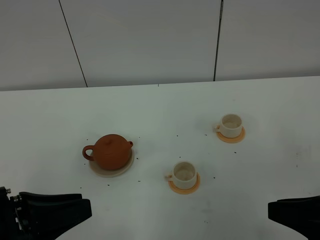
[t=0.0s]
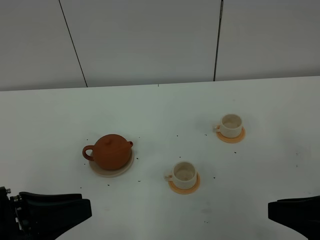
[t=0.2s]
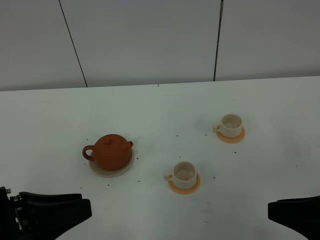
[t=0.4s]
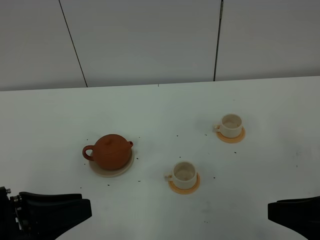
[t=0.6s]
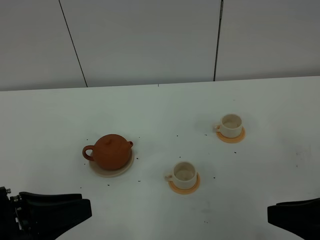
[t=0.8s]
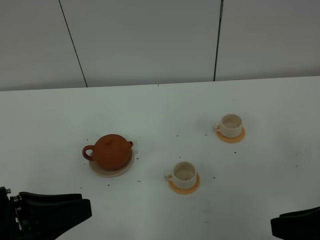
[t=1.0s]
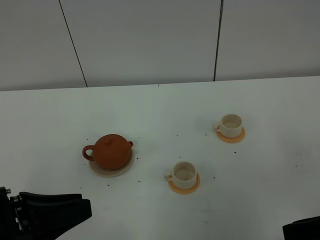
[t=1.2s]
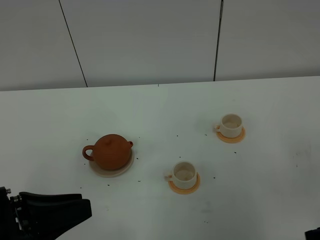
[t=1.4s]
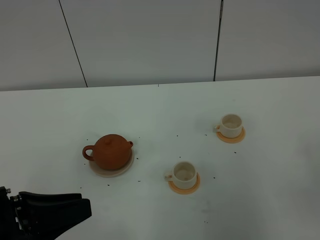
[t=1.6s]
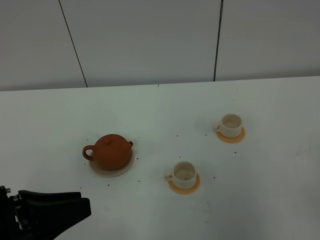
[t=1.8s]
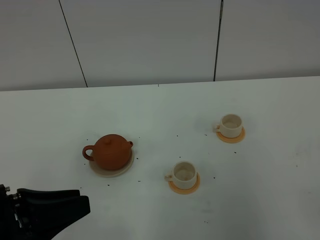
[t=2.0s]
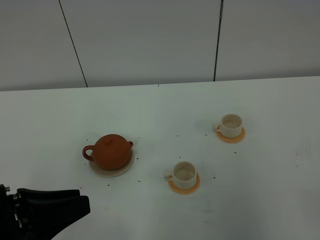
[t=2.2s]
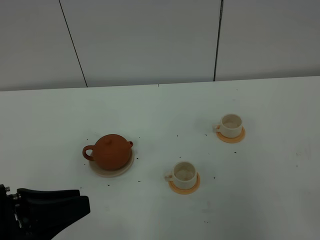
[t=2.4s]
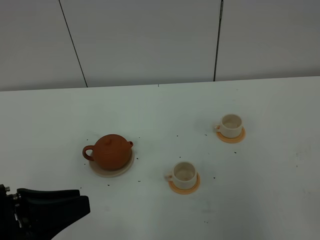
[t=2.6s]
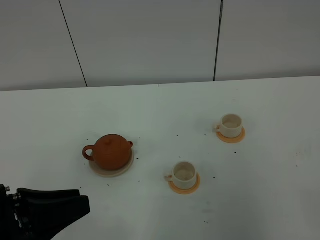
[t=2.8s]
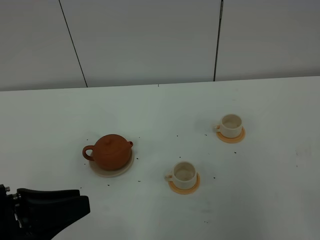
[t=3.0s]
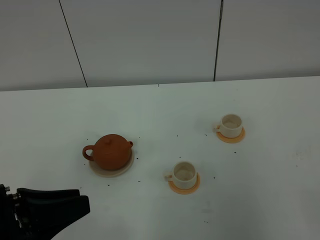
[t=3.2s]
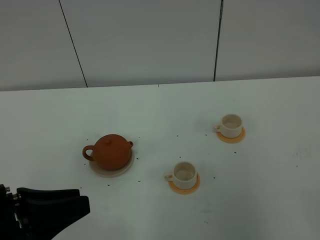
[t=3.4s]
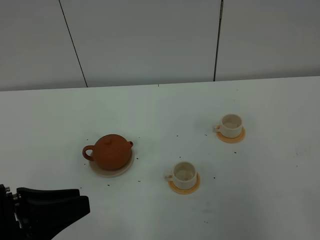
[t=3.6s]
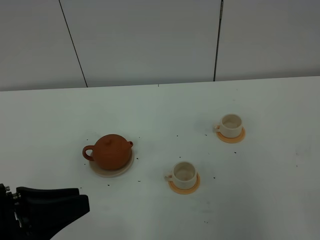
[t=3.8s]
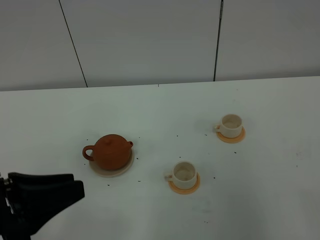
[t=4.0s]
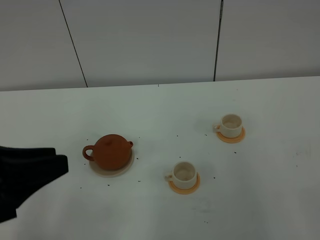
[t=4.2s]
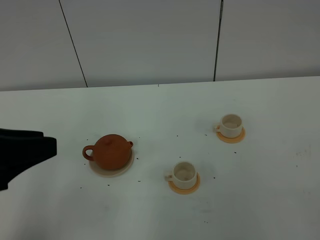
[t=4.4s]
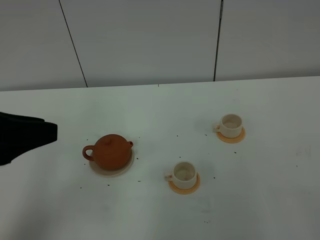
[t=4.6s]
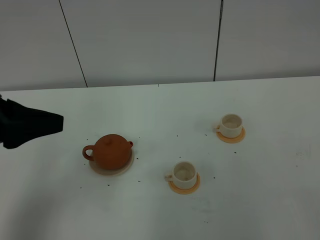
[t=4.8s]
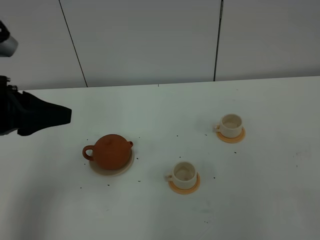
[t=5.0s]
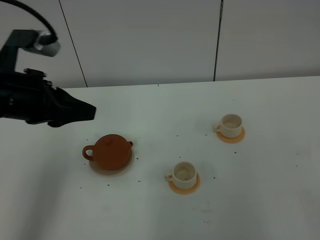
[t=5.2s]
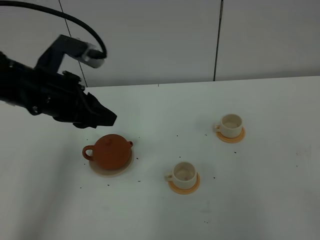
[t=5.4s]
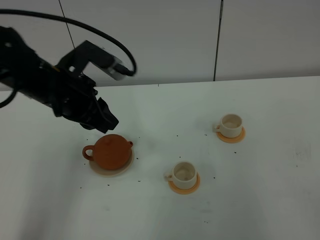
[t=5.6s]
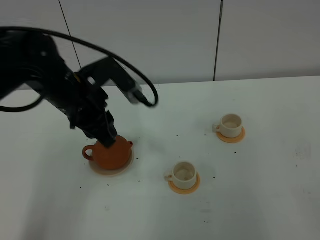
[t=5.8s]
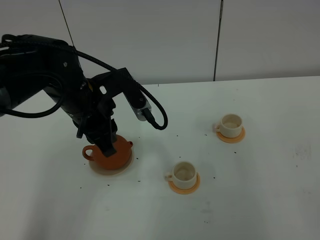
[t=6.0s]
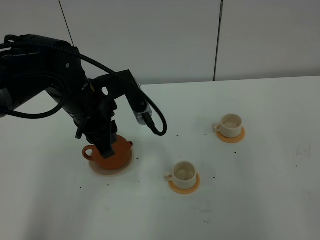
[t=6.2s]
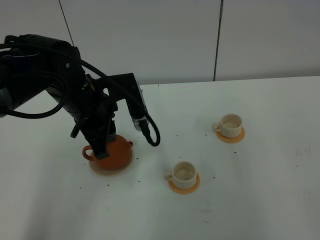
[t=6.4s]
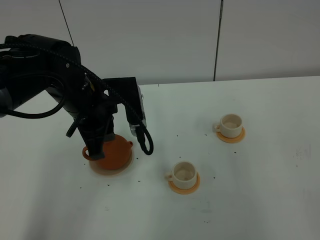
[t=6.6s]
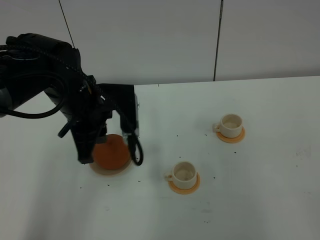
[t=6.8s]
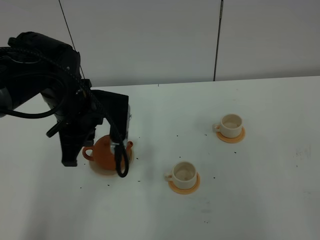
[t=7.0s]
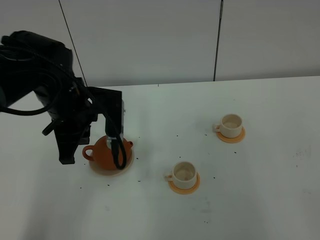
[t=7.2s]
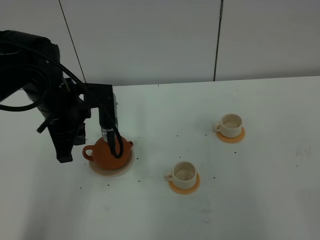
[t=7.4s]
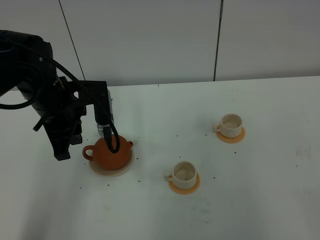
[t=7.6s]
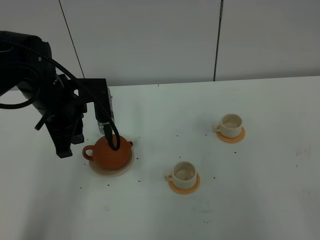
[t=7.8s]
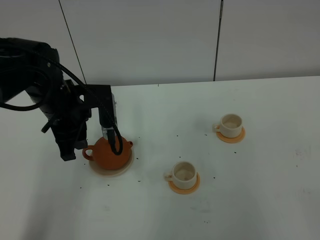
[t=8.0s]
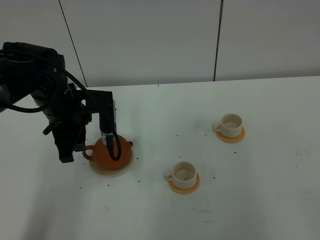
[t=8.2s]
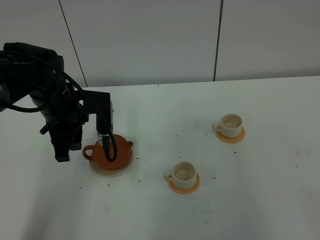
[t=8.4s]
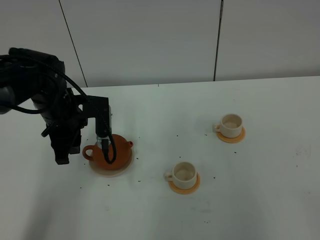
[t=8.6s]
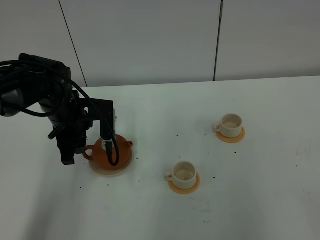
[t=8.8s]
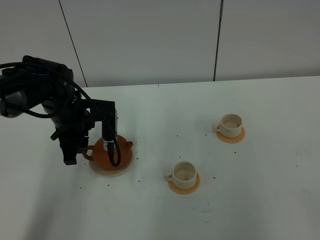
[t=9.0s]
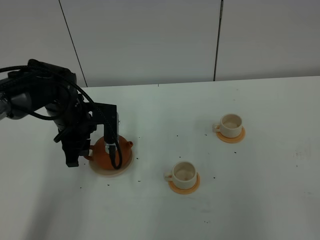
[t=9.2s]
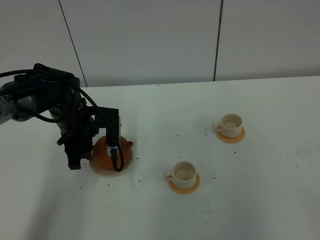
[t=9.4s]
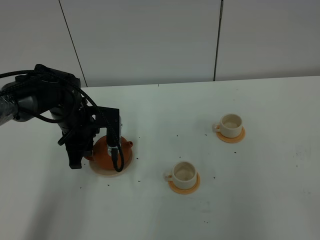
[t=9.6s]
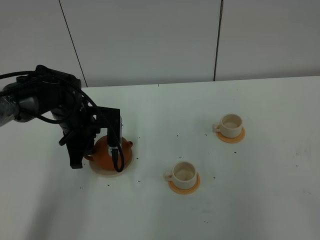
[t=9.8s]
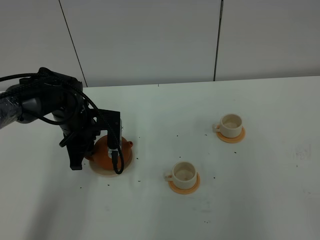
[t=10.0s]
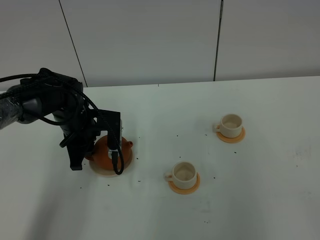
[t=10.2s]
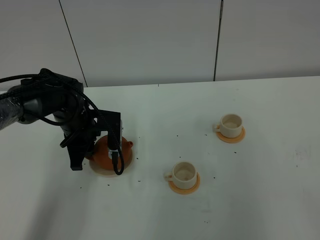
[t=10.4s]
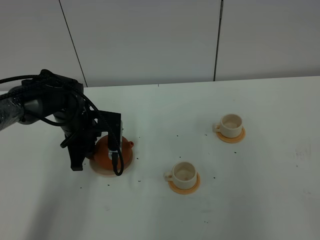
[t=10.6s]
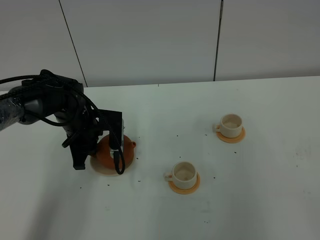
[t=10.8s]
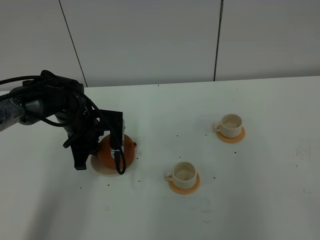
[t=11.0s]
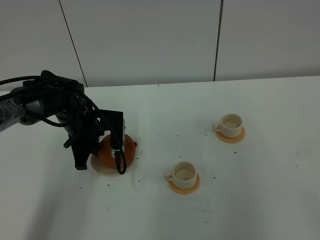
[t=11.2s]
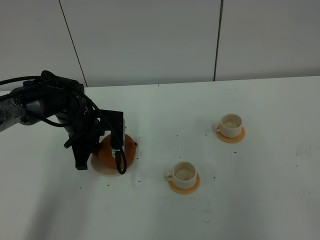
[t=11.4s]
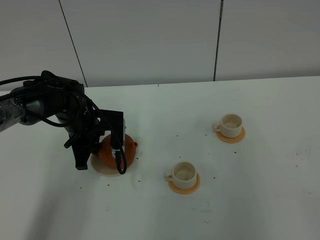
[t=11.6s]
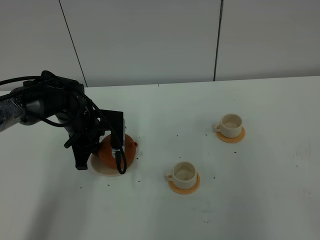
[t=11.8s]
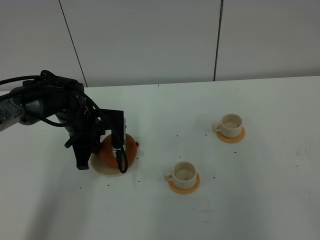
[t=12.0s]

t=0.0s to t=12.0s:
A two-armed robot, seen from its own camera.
Task of the whole recording: grasp the brown teapot and pour the tea into the two white teacups one by one, put the brown teapot back in its original place.
t=0.0s to t=1.6s: The right gripper heads backward, covering roughly 5 cm.
t=3.0s to t=4.4s: The left gripper moves upward, roughly 10 cm.
t=4.4s to t=6.0s: The left gripper moves forward, to the right and downward, about 25 cm.
t=6.0s to t=7.6s: The left gripper is displaced to the left by roughly 5 cm.
t=7.6s to t=9.0s: The left gripper travels downward by about 5 cm, and opens up.
t=9.0s to t=10.4s: There are only small adjustments of the grippers.
t=10.4s to t=12.0s: The left gripper closes up.

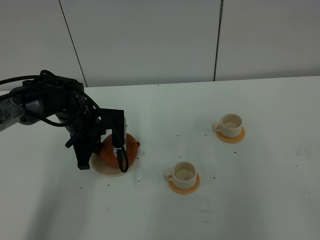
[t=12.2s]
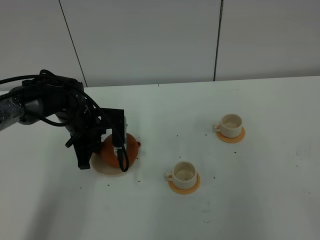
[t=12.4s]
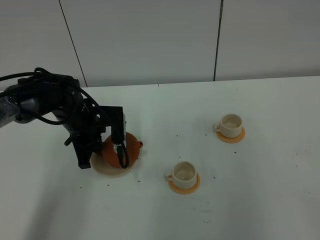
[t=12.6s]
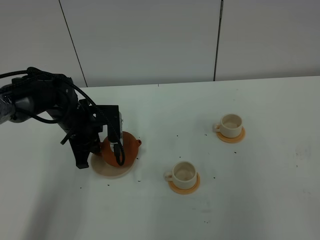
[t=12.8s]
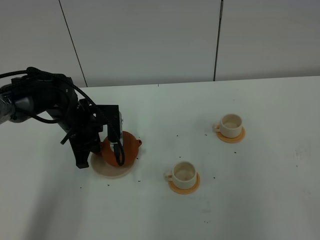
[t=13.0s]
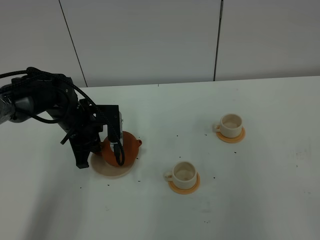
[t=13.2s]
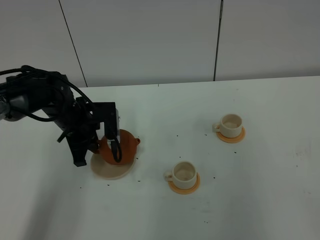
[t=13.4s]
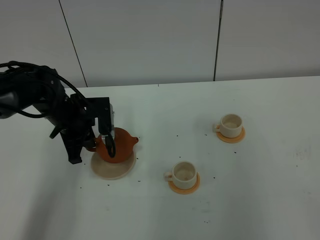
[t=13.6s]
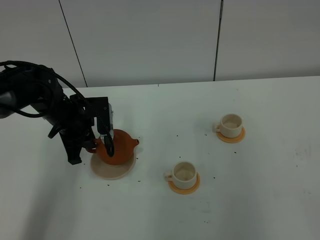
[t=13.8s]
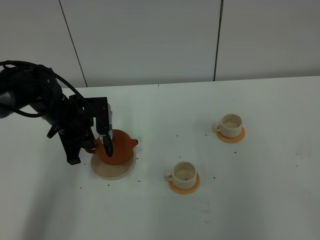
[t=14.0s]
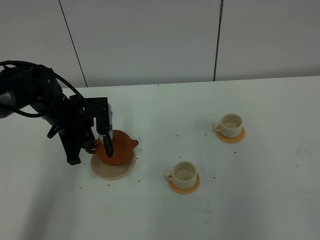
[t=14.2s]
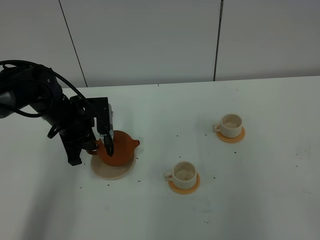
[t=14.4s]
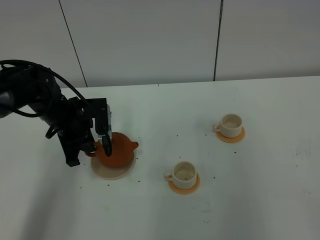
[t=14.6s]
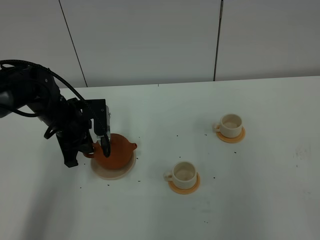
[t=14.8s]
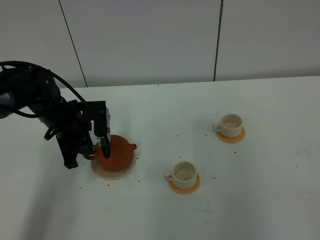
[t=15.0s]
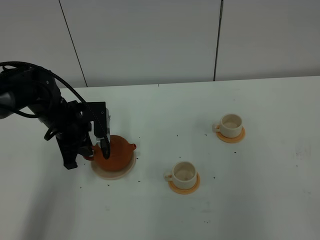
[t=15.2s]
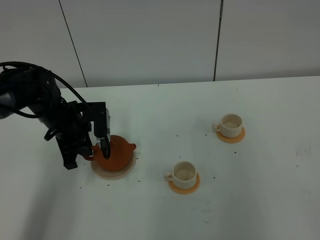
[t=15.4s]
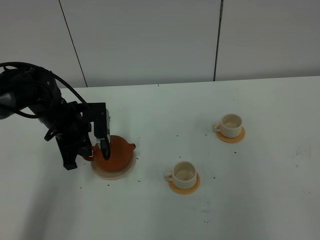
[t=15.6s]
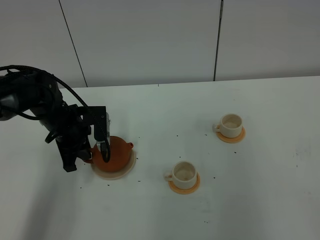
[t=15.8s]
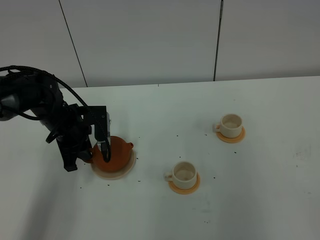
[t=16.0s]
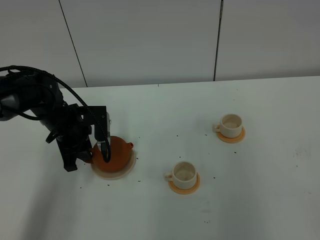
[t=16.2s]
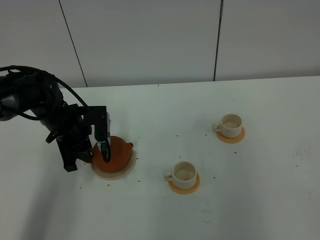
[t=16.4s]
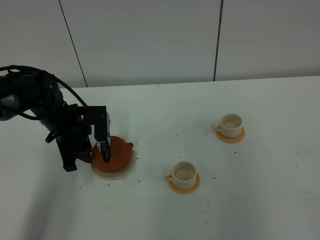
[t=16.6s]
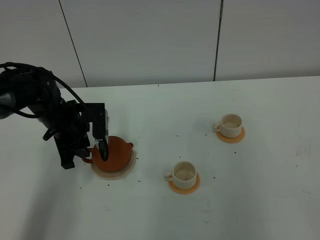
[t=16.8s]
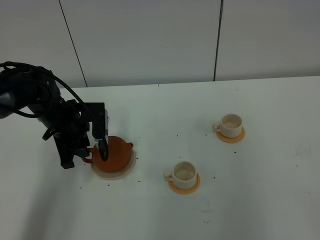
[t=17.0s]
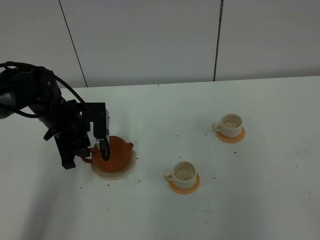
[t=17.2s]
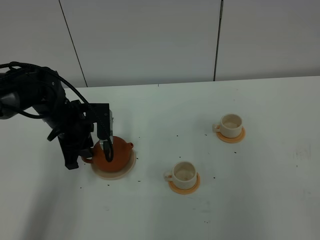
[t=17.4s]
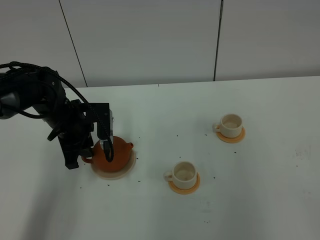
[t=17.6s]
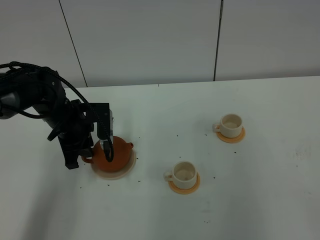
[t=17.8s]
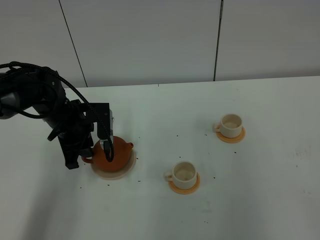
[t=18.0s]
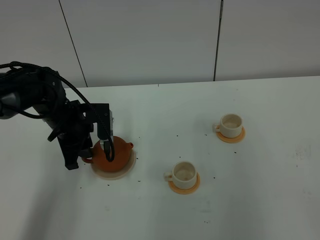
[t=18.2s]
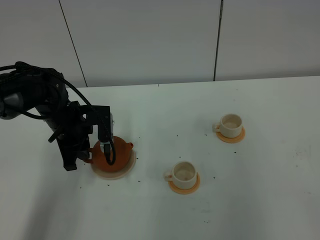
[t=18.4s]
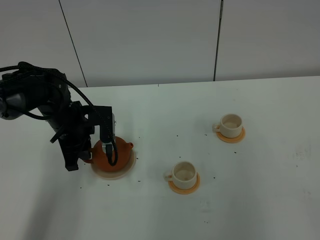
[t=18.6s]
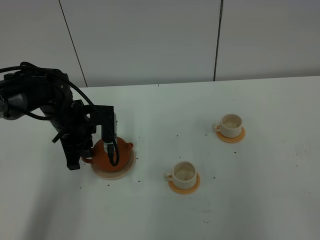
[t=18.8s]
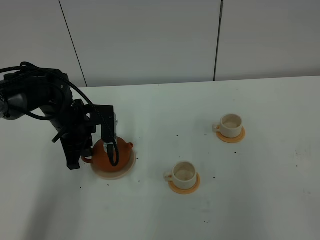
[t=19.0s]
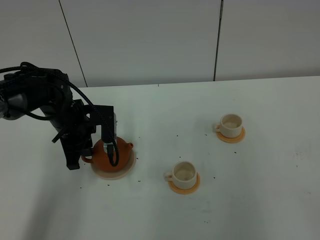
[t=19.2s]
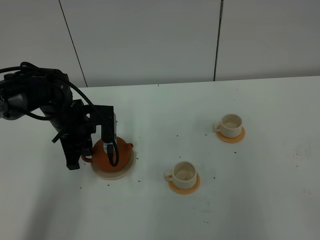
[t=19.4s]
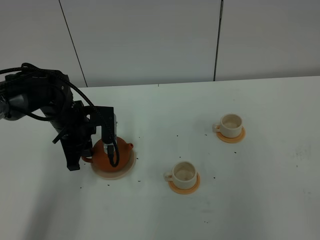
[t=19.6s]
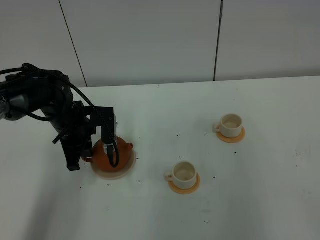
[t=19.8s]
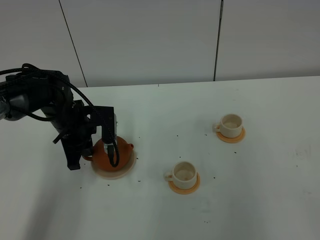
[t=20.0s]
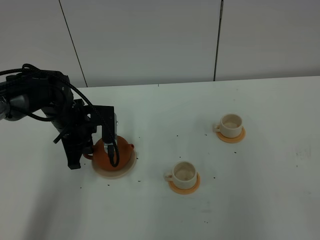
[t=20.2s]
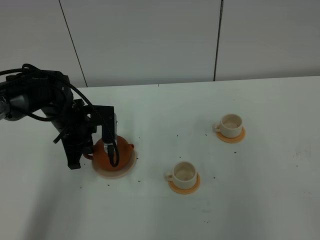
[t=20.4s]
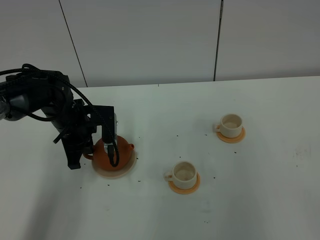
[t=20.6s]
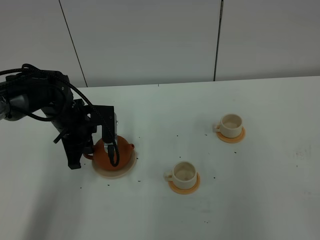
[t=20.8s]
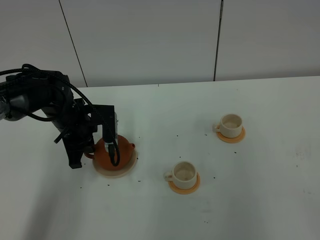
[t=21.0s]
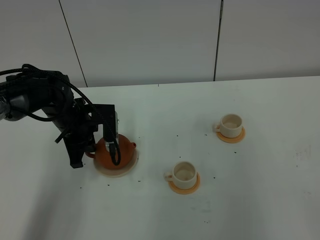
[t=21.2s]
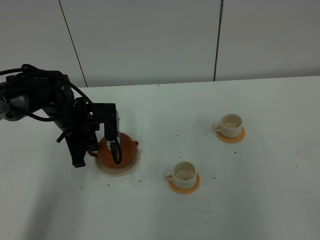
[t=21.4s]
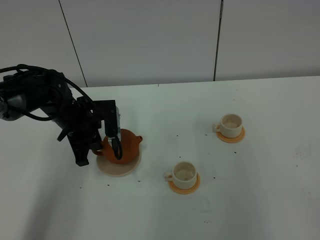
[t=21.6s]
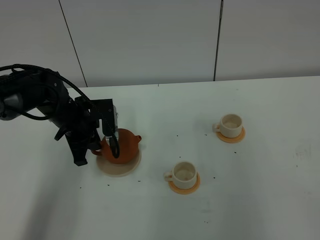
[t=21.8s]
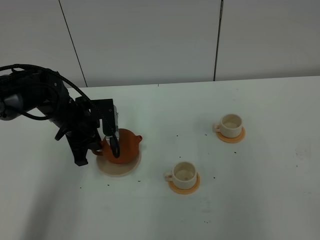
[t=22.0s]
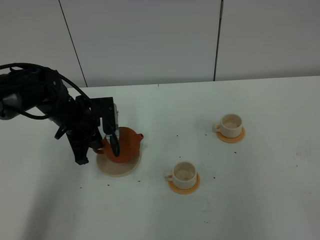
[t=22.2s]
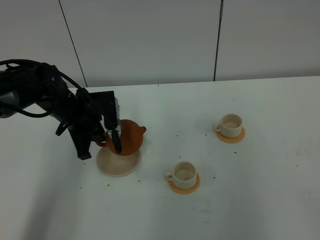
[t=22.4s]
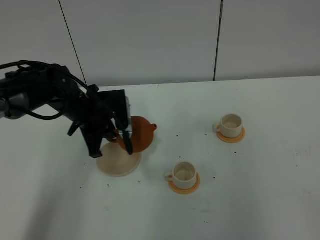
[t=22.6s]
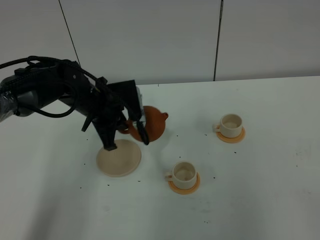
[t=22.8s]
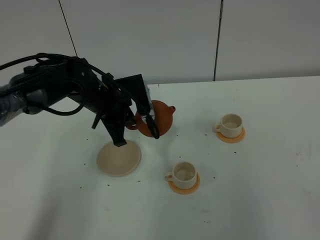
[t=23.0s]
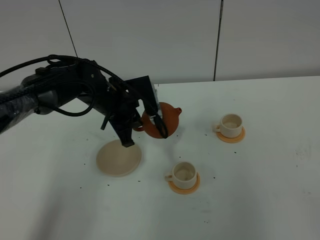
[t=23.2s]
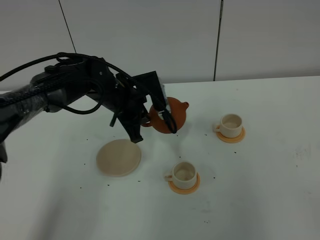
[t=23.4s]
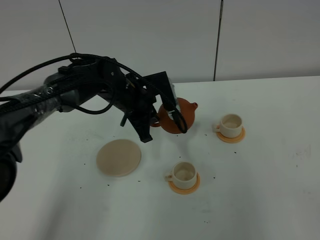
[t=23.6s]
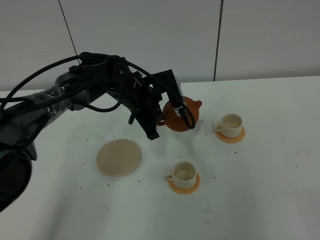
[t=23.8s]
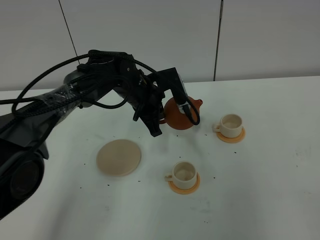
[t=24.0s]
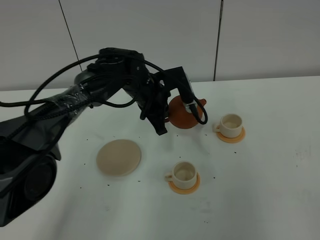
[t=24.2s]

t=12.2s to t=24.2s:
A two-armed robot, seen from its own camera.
Task of the whole recording: grasp the brown teapot and pour the tea into the two white teacups one by one, put the brown teapot back in its original place.
Step, t=12.2s to t=22.2s: Pick up the teapot with the left gripper.
t=12.2s to t=13.8s: The grippers stay close to where they were, moving slightly.
t=13.8s to t=15.2s: The two grippers keep their place.
t=15.2s to t=16.6s: The left gripper opens its fingers.
t=16.6s to t=18.2s: Neither gripper changes place.
t=18.2s to t=21.2s: Both grippers stay about where they are.
t=21.2s to t=22.6s: The grippers move only a little.
t=22.6s to t=24.2s: The left gripper goes about 15 cm to the right and forward.
